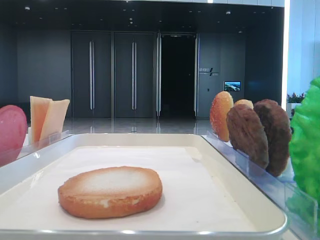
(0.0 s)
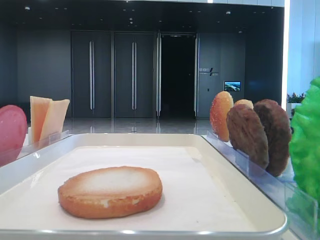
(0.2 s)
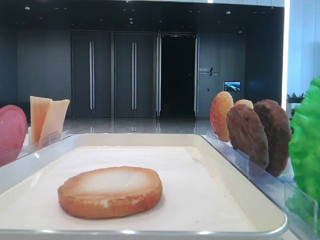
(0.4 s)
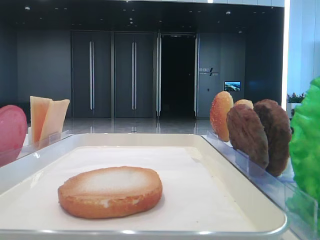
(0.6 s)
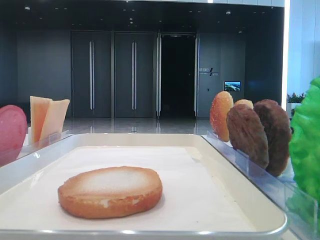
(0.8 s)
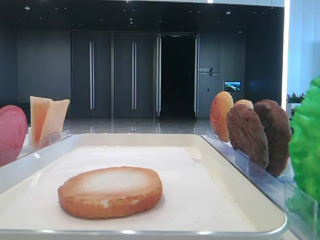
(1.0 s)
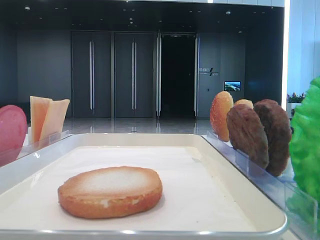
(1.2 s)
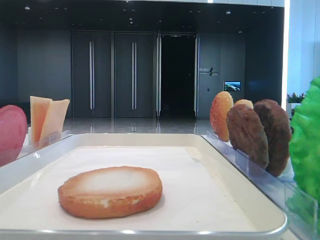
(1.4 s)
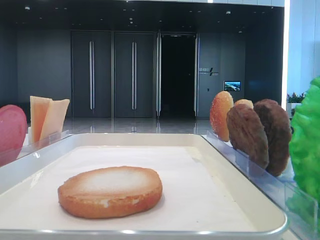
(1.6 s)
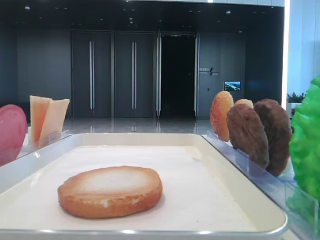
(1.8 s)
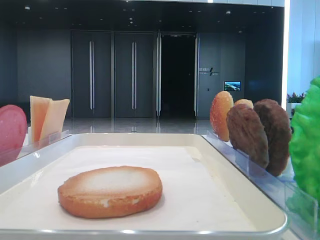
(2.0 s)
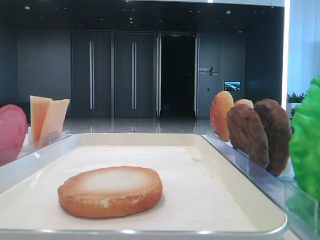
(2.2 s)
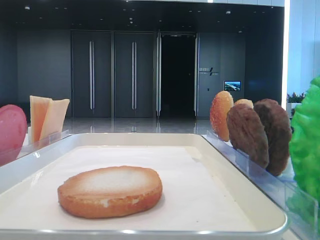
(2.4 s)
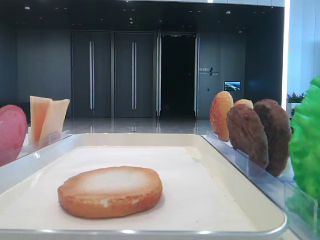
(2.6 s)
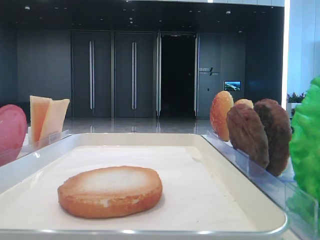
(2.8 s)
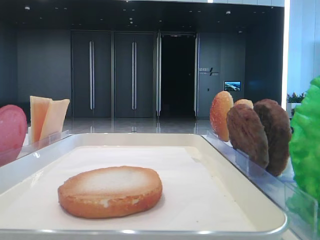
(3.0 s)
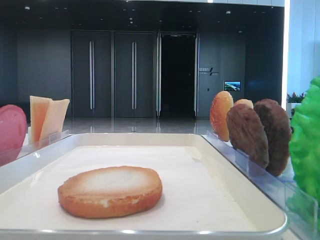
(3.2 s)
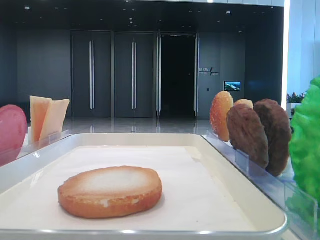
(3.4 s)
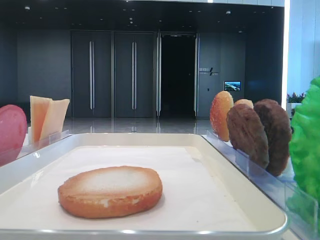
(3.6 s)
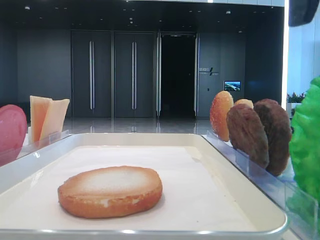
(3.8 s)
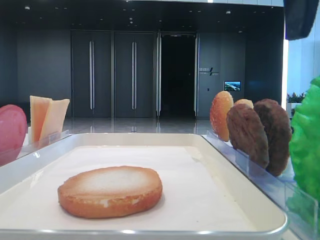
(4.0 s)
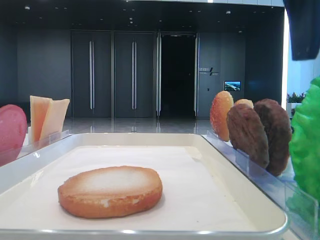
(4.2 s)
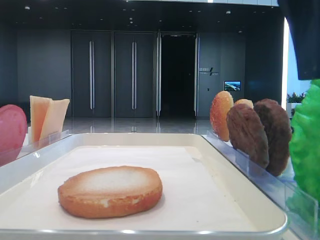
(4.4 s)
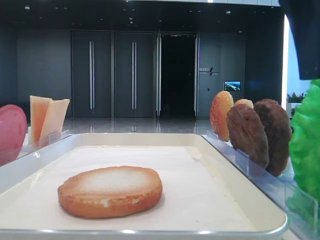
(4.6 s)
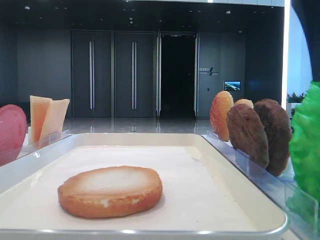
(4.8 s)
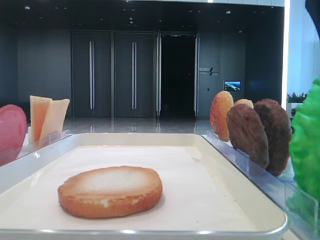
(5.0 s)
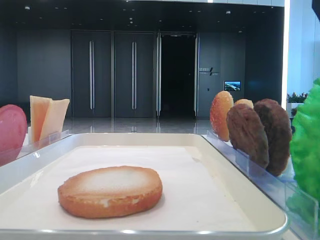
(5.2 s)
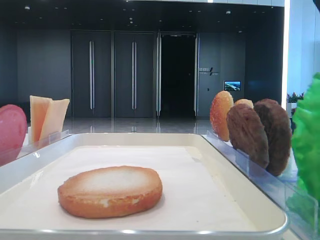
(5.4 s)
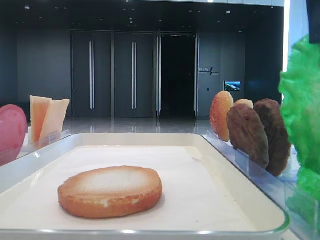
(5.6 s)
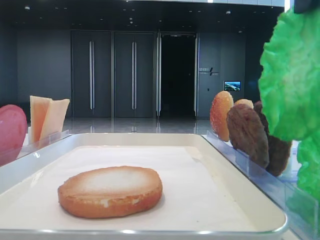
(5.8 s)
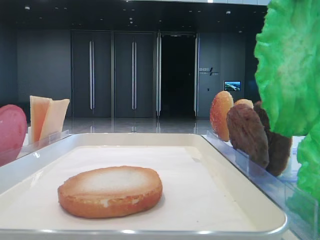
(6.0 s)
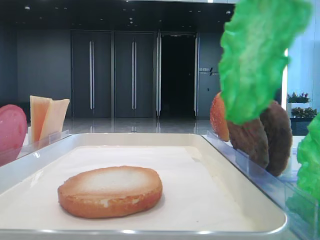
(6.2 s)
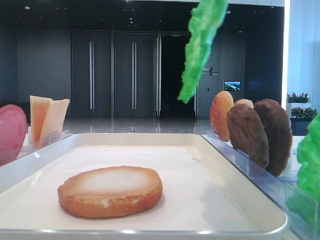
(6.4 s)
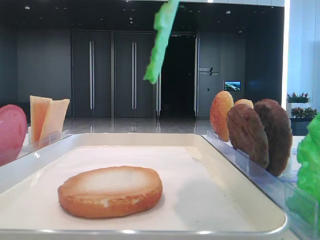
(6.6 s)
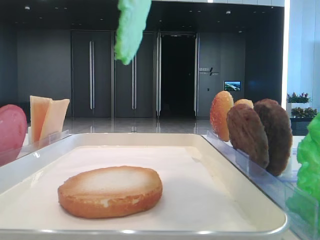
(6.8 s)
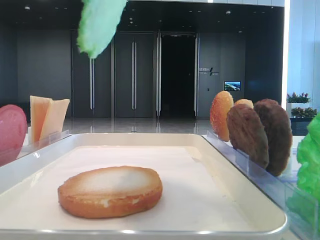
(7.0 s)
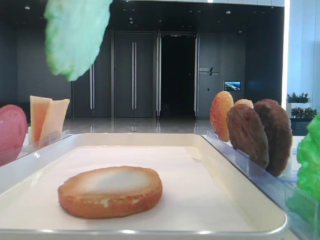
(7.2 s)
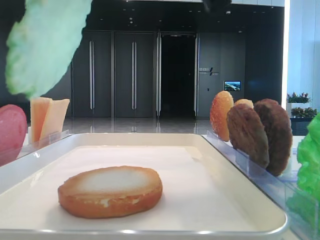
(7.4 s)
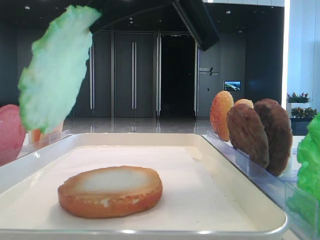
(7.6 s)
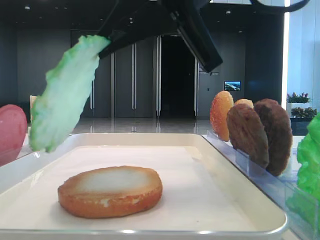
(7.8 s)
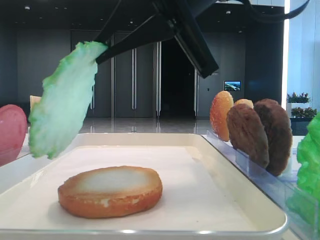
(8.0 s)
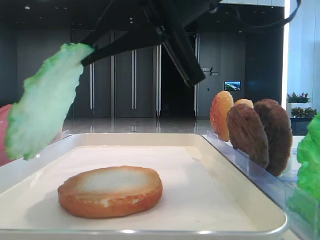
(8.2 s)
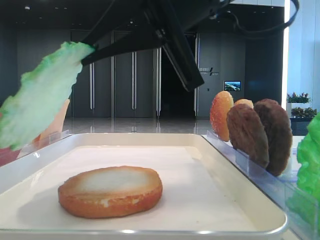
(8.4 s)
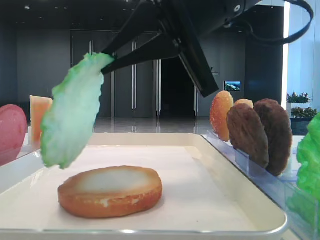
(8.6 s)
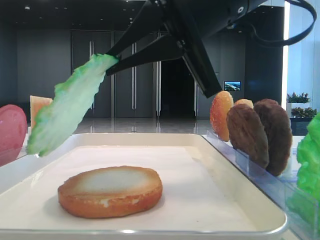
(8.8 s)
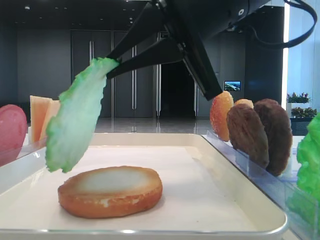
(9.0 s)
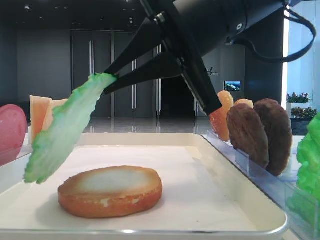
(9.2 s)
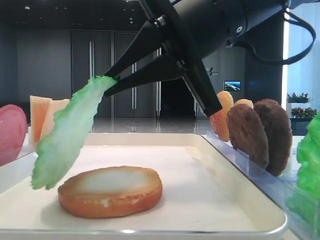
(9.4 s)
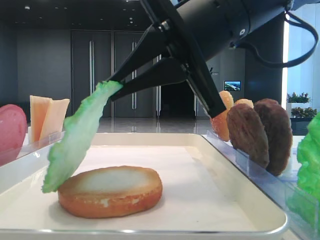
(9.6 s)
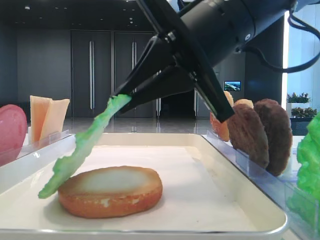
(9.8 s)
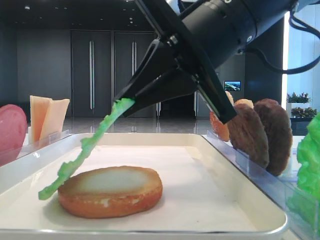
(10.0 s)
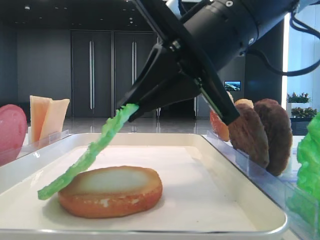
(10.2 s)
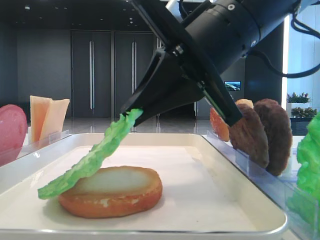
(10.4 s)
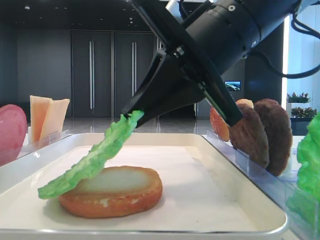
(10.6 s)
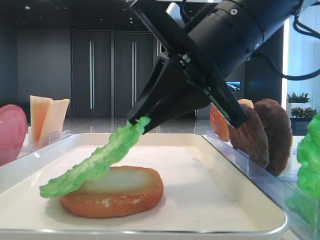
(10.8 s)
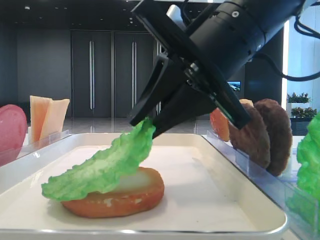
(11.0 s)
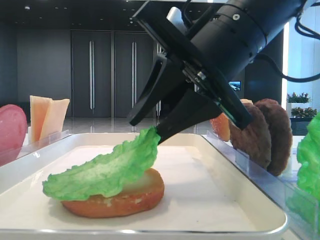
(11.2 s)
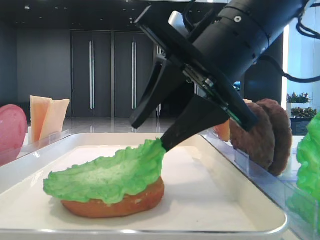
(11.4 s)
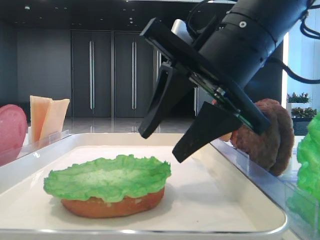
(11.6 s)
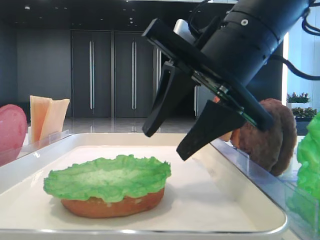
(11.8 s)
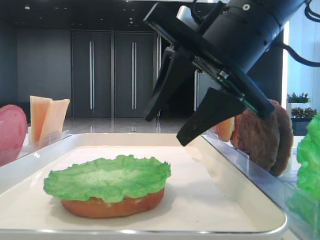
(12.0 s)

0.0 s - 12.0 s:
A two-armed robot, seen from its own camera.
Step, 0.0 s - 5.0 s: Grab the lettuce leaf with the right hand.
Step, 5.2 s - 11.4 s: Place the lettuce leaf on the bottom bread with the right hand.
3.0 s - 4.4 s: The right gripper moves to the left and downward, approximately 10 cm.
4.4 s - 6.0 s: The right gripper moves upward, approximately 5 cm, and closes up.
6.0 s - 7.6 s: The right gripper heads to the left and downward, covering about 10 cm.
7.6 s - 9.0 s: The right gripper ends up some 5 cm from where it was.
9.0 s - 10.4 s: There are only small adjustments of the grippers.
10.4 s - 12.0 s: The right gripper opens.

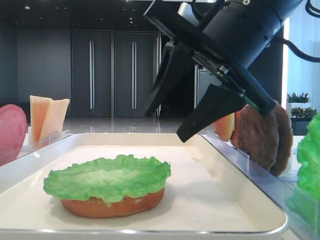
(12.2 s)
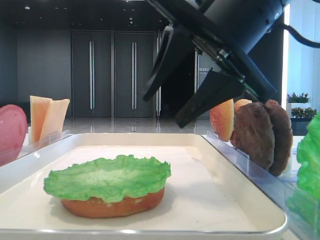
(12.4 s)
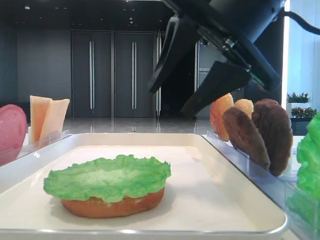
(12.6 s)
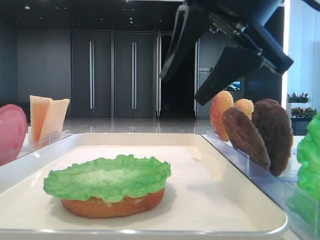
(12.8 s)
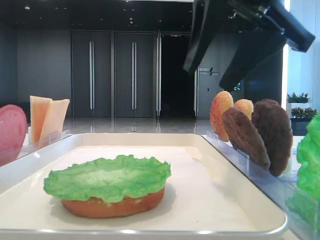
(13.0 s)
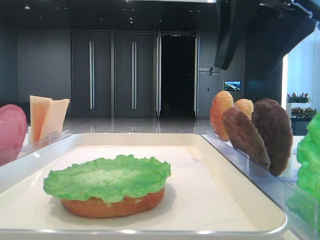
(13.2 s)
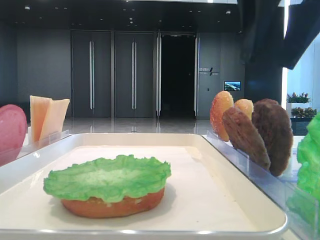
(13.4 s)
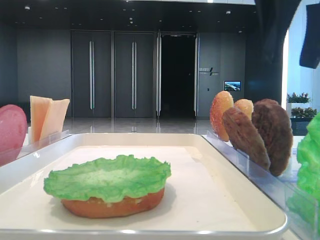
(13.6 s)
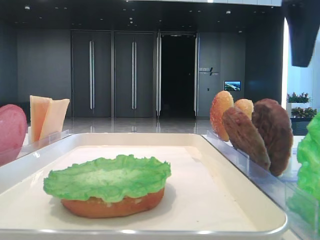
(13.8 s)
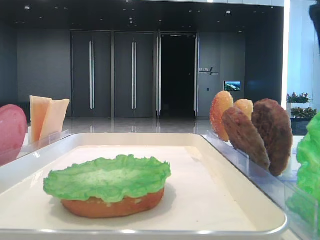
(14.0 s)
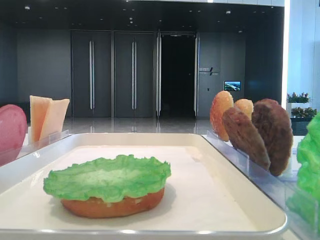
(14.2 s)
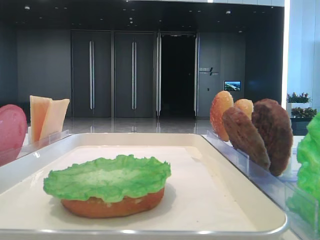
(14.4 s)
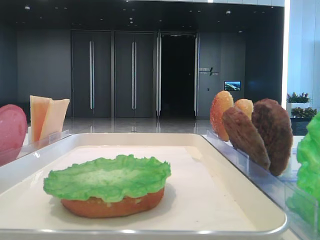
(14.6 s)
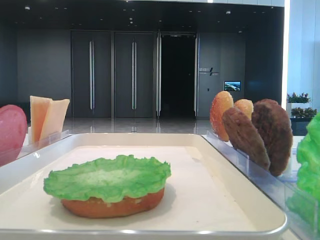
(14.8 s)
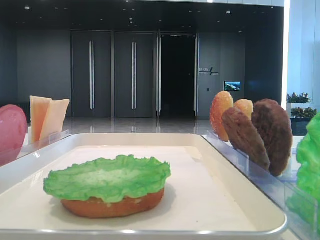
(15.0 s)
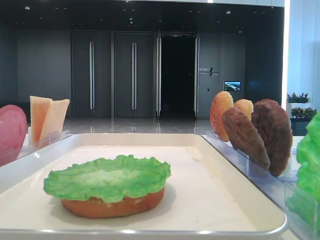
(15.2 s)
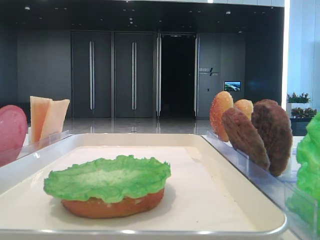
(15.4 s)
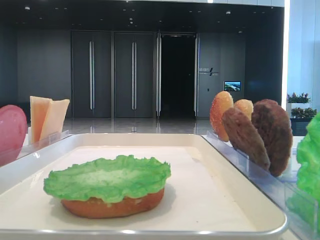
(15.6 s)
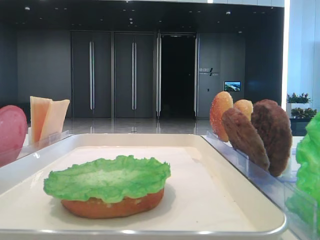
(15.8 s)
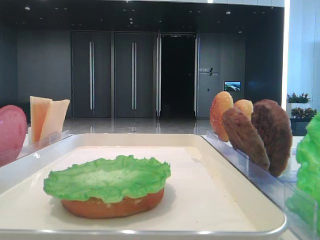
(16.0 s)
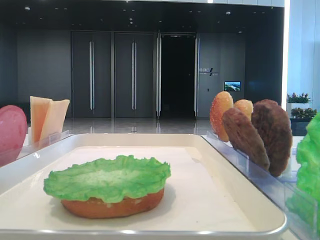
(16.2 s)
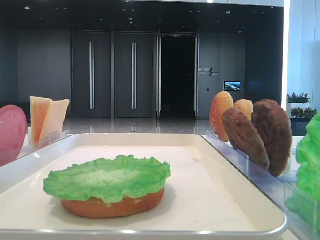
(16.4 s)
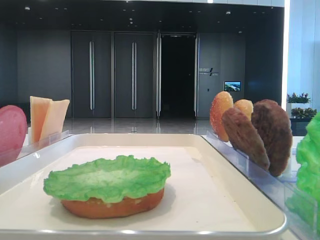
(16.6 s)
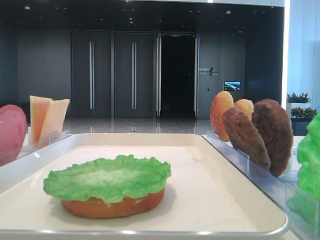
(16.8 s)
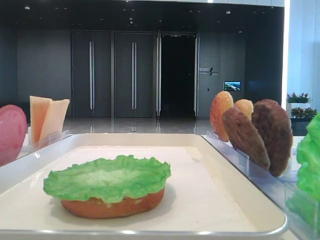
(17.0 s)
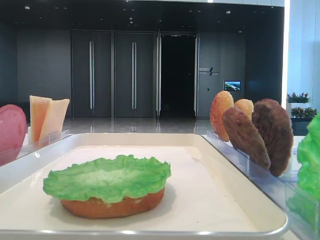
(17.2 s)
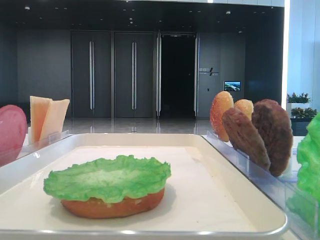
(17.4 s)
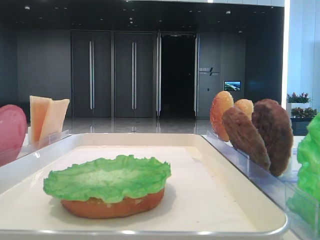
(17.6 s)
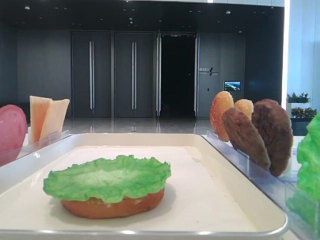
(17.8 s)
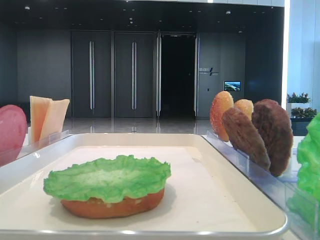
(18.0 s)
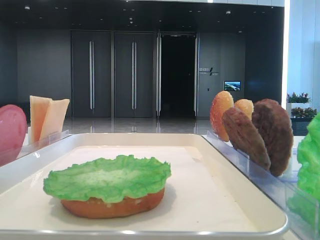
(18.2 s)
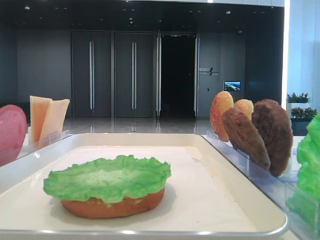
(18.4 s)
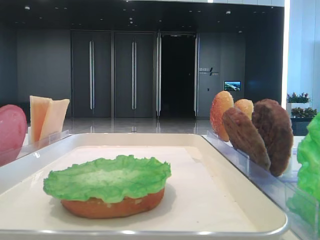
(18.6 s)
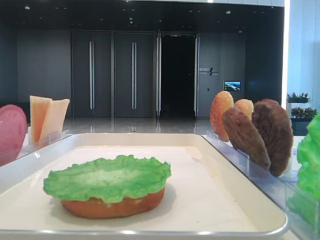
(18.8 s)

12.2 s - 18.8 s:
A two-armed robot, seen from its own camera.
12.2 s - 13.8 s: The right gripper goes some 15 cm to the right and upward.
13.8 s - 15.4 s: The right gripper heads backward and to the right, covering roughly 20 cm.
15.4 s - 17.2 s: The right gripper is displaced backward by about 10 cm.
17.2 s - 18.8 s: Neither gripper changes place.

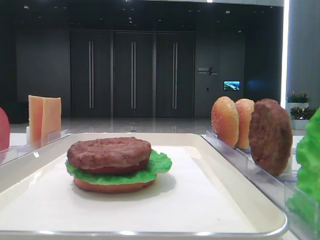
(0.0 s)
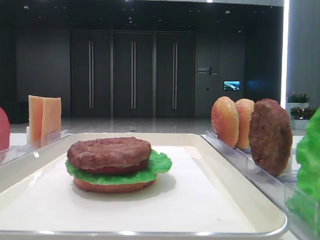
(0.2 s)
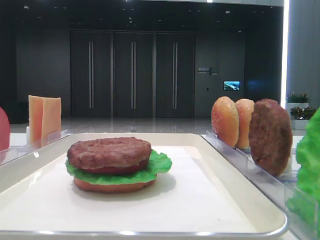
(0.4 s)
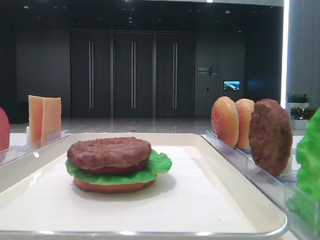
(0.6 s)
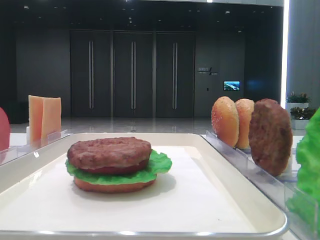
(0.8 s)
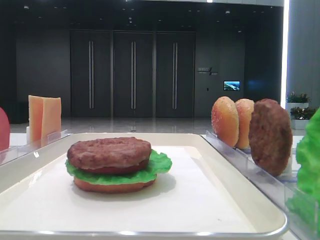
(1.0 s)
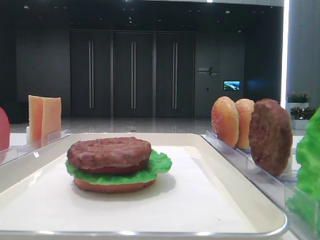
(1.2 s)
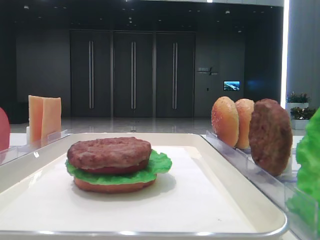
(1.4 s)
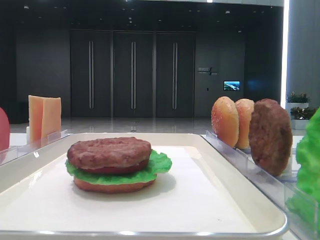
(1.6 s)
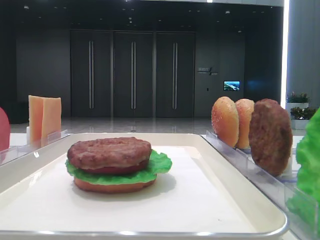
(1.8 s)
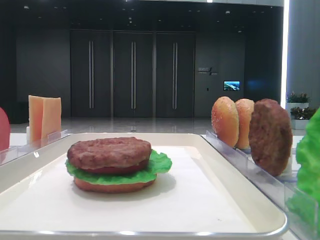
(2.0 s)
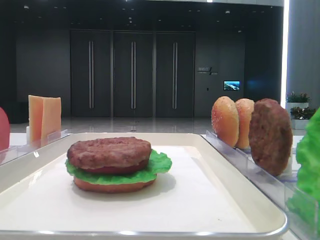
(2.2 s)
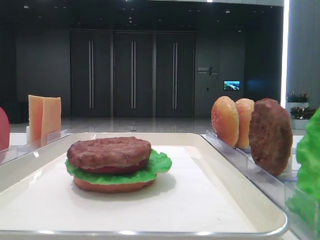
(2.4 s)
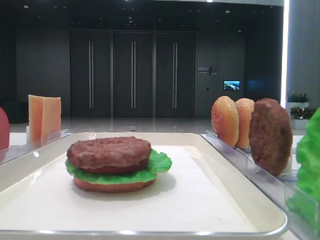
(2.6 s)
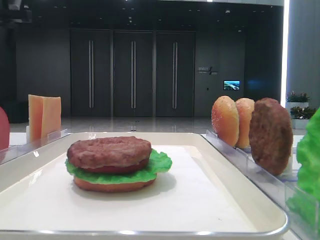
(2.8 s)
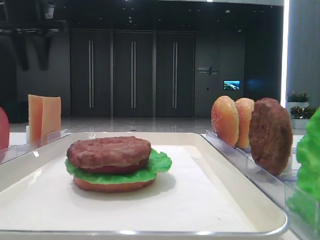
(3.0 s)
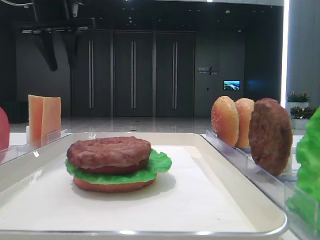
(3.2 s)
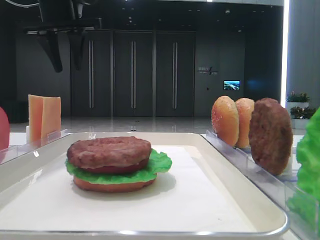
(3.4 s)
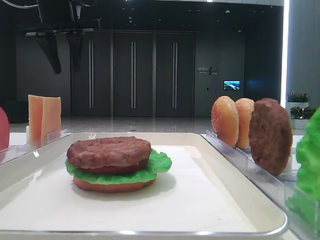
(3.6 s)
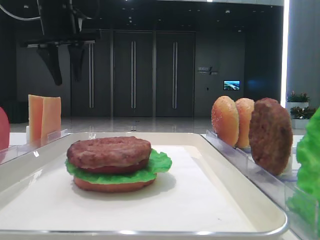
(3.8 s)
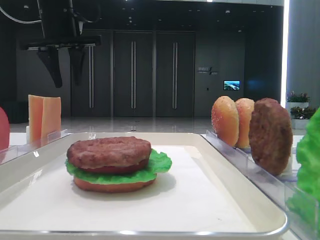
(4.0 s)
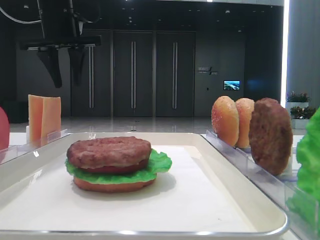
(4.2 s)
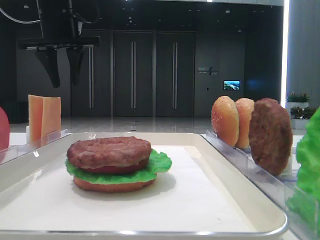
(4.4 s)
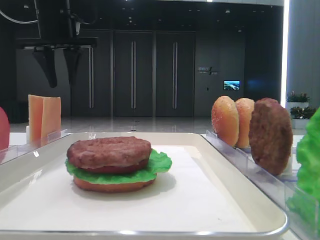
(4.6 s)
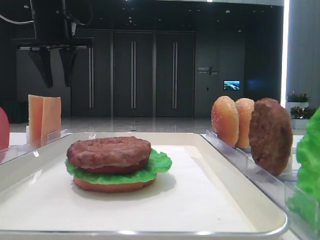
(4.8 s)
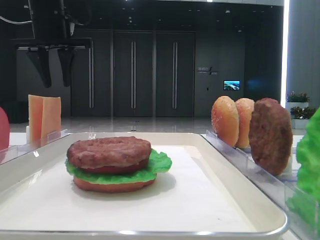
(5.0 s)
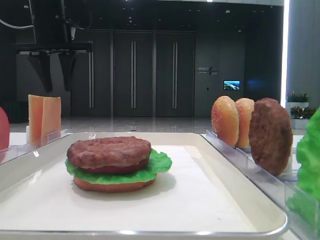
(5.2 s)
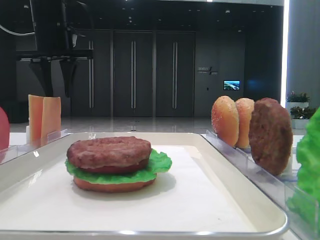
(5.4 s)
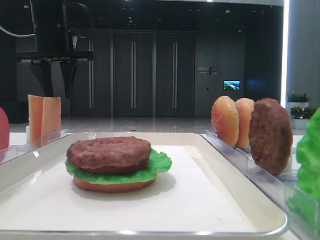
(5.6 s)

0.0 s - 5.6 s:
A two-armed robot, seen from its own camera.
1.4 s - 2.8 s: The left gripper goes approximately 40 cm forward, and opens up.
2.8 s - 4.2 s: The left gripper shifts about 10 cm to the right.
4.2 s - 5.6 s: The grippers move only a little.
